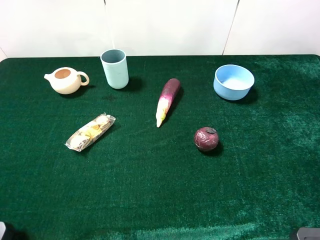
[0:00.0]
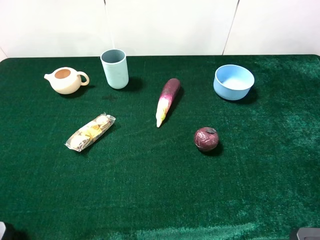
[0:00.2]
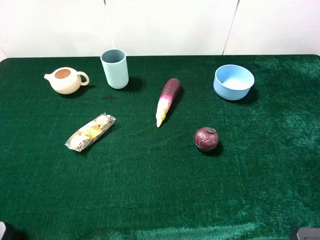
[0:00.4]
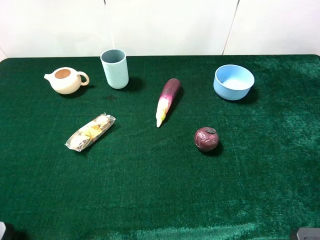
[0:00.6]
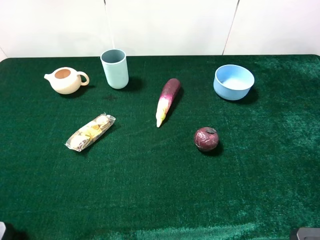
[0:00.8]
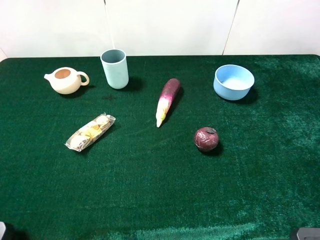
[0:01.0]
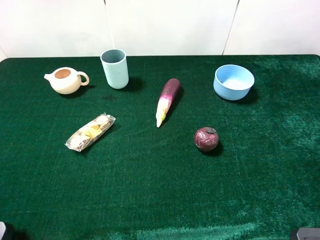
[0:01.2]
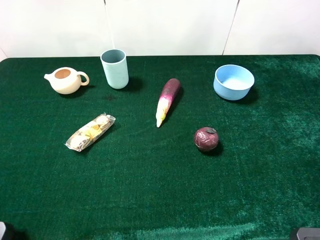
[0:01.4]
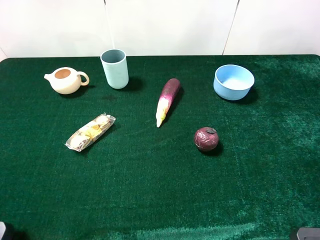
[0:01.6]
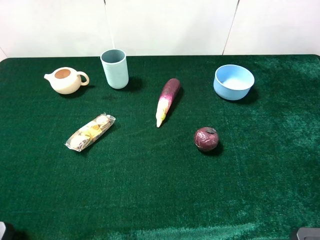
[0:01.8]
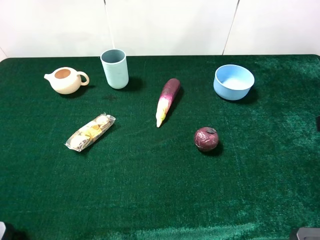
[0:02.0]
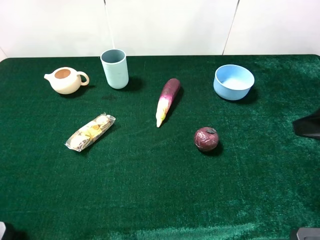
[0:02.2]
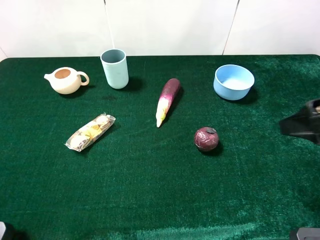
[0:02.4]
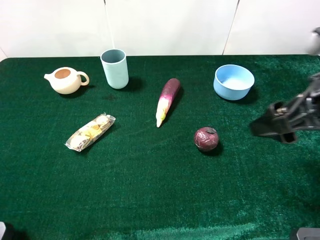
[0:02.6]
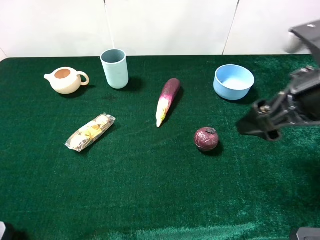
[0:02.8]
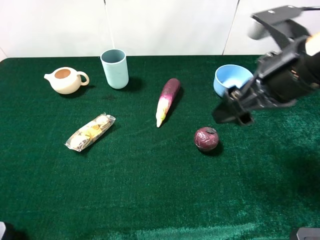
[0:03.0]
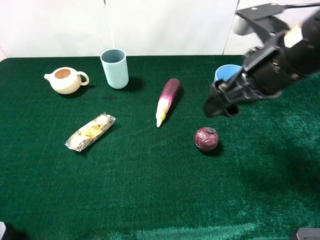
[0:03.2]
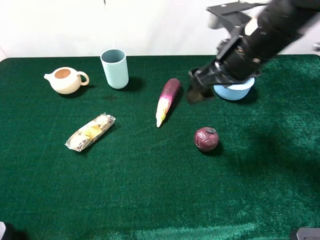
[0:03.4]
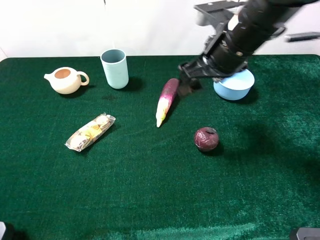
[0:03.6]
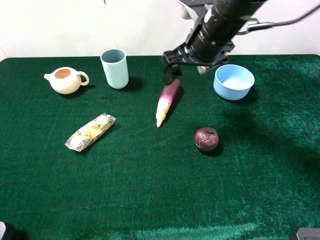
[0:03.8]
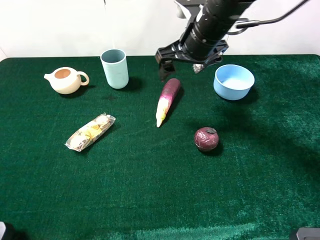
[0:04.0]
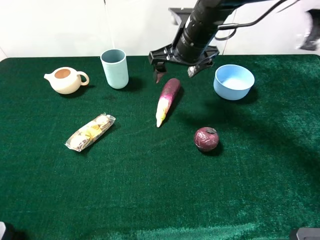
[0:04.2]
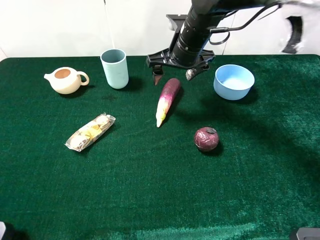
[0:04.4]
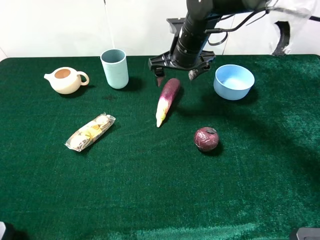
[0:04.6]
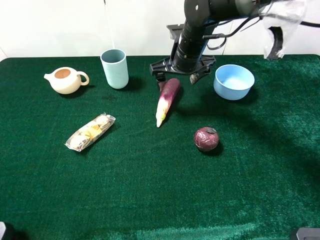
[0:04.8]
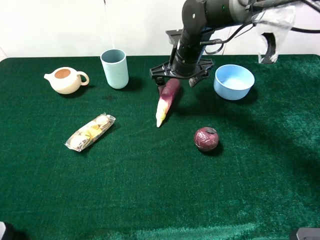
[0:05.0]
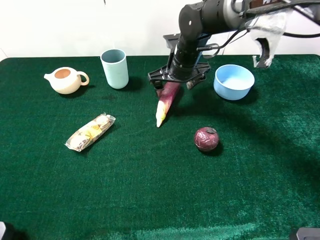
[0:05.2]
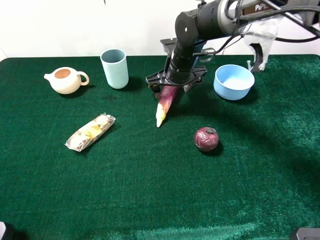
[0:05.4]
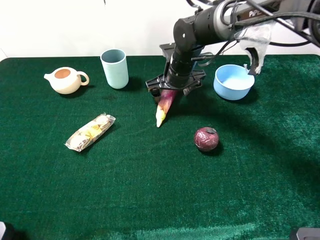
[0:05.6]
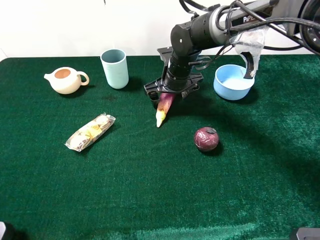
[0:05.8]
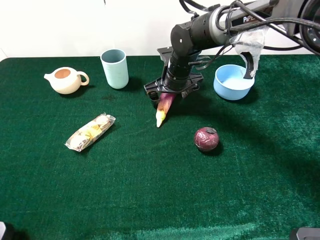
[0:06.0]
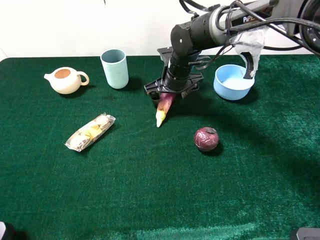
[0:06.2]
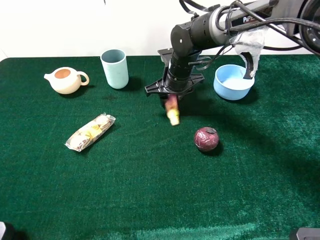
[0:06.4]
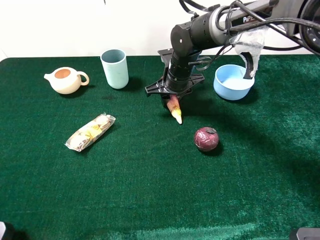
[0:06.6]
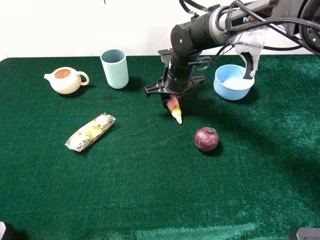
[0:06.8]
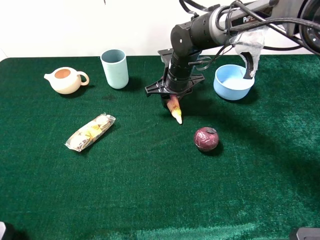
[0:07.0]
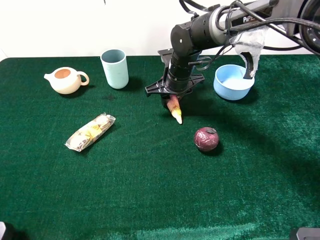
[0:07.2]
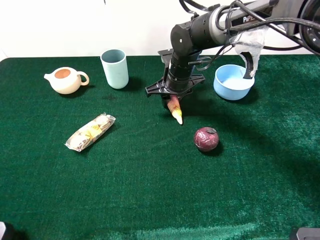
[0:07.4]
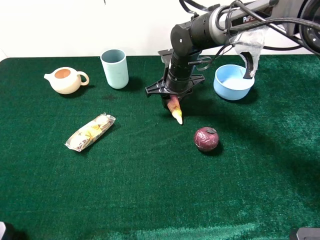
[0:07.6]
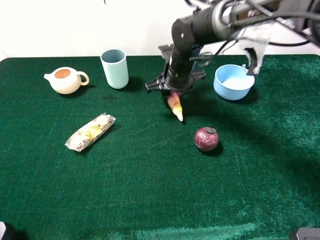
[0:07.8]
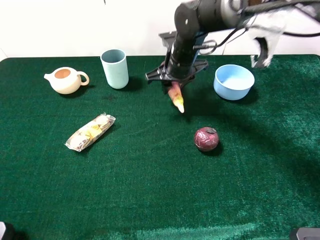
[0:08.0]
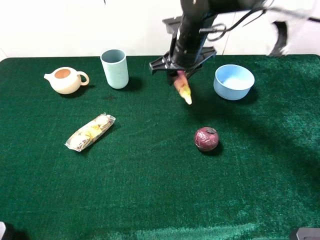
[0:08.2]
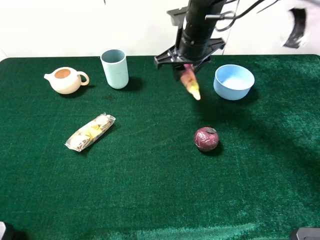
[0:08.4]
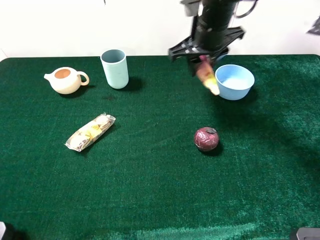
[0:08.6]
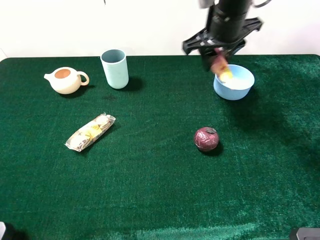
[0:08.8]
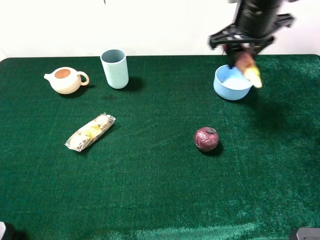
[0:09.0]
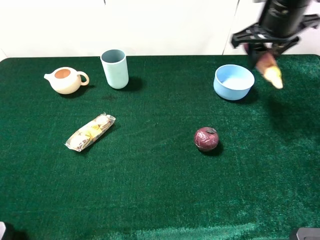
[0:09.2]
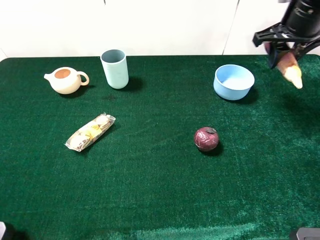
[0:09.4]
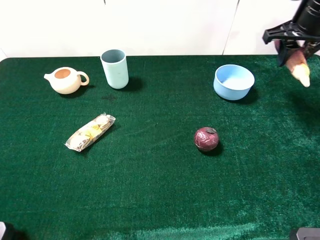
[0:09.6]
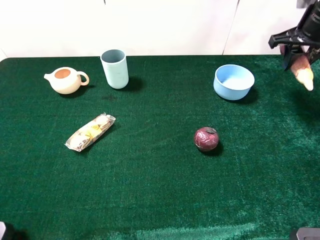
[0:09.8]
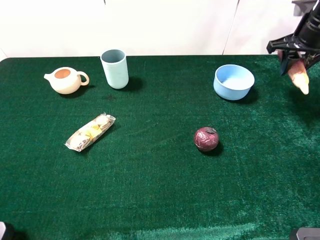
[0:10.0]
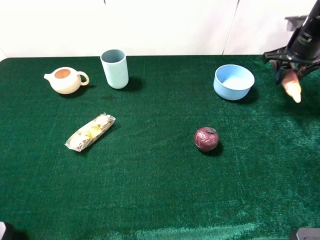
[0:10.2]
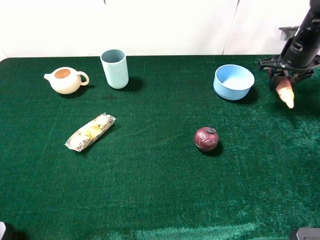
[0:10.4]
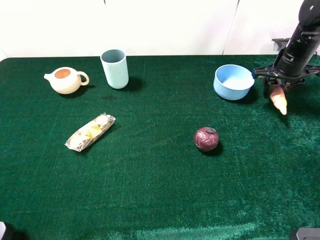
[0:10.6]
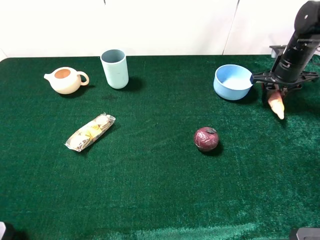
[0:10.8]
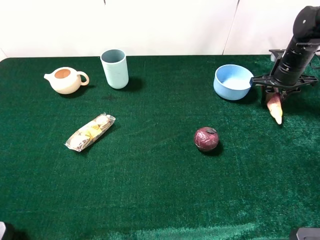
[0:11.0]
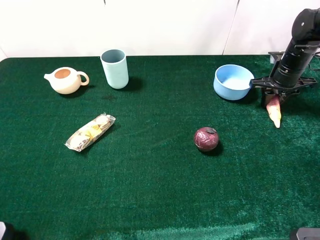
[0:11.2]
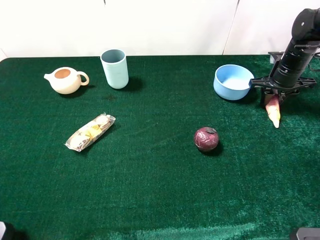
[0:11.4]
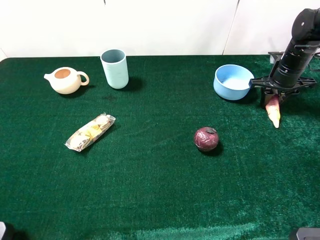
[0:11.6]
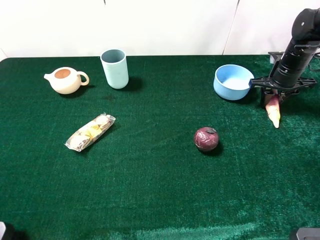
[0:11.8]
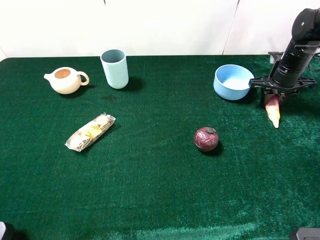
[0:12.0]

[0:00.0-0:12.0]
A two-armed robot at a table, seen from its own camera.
Task of the whole recording: the gripper move the object.
Step, 0:00.0 to 0:07.4: Grasp the eggplant with the right gripper.
0:01.6 to 0:03.0: The right gripper heads forward and to the left, covering approximately 20 cm.
0:03.0 to 0:04.4: The right gripper moves forward, to the left and downward, some 25 cm.
0:04.4 to 0:06.0: The right gripper is displaced downward by roughly 10 cm.
0:06.0 to 0:07.6: The right gripper closes.
0:07.6 to 0:09.0: The right gripper goes about 20 cm upward and to the right.
0:09.0 to 0:10.4: The right gripper travels to the right, downward and forward by roughly 20 cm.
0:10.4 to 0:12.0: The right gripper goes some 5 cm downward.

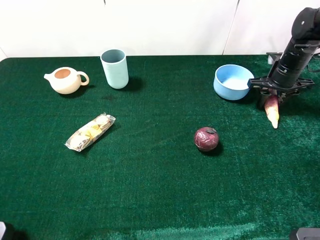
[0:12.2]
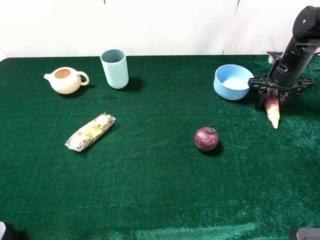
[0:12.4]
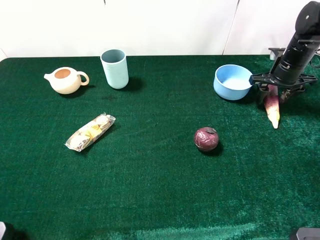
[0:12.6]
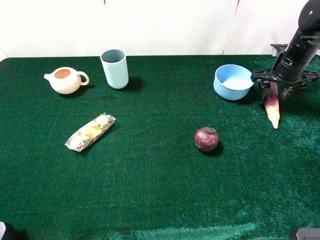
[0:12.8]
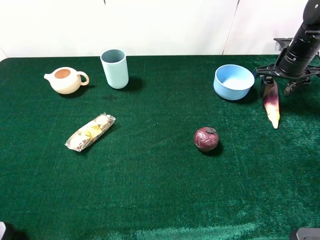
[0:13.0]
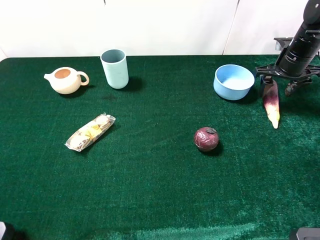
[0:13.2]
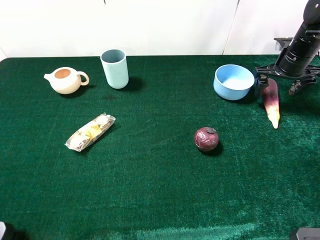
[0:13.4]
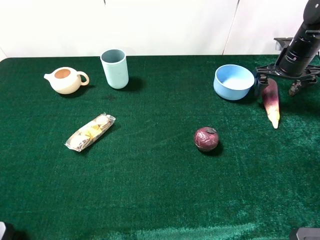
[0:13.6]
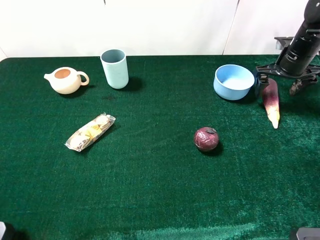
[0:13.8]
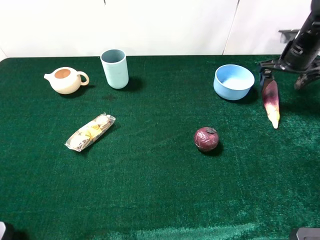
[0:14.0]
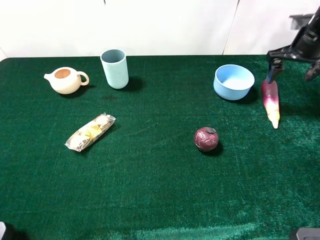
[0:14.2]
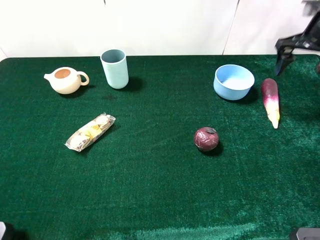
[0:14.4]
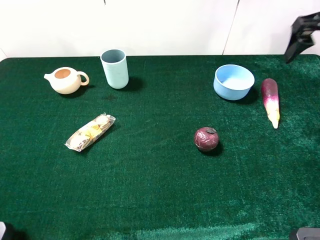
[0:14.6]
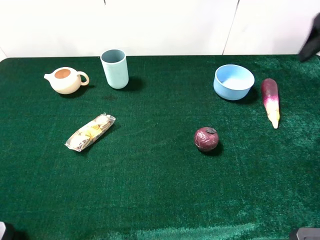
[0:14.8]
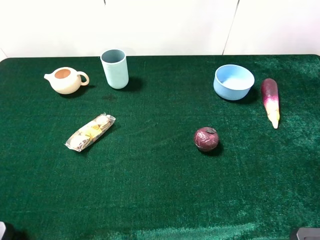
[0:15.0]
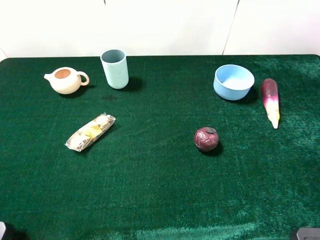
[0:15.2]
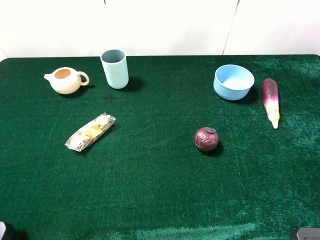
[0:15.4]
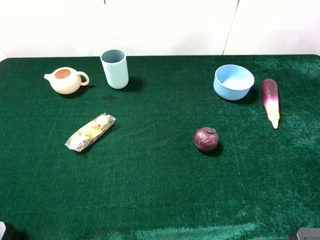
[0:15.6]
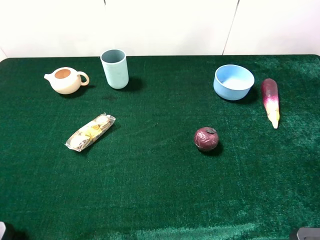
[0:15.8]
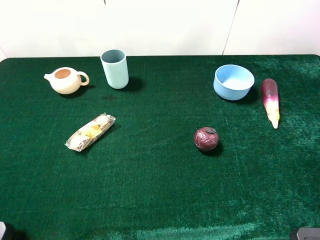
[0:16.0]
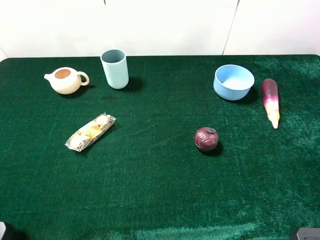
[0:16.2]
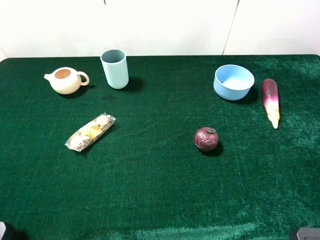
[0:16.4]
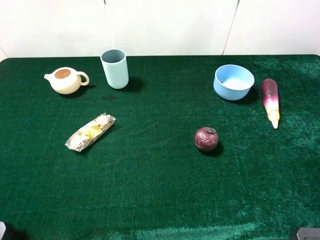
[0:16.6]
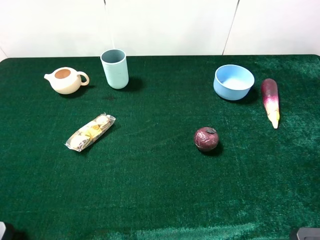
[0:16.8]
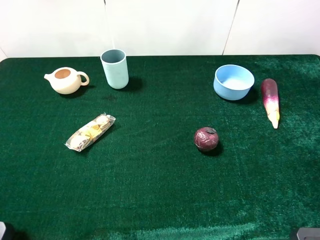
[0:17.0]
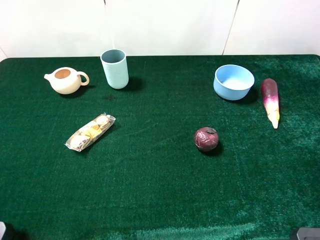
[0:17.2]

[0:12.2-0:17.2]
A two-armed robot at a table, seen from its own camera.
Task of the whole recording: the gripper move the object.
Step, 0:12.2 to 0:14.4: Place the eggplant on the table with the right gripper.
0:12.2 to 0:13.8: The right gripper opens its fingers.
0:13.8 to 0:15.6: The right gripper shifts approximately 40 cm backward and upward.

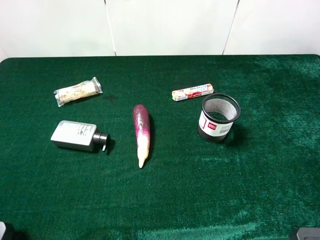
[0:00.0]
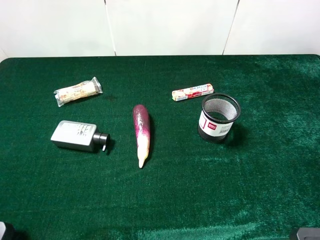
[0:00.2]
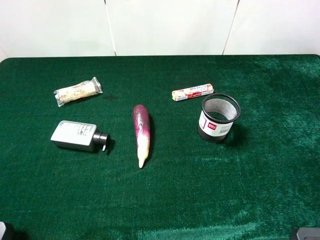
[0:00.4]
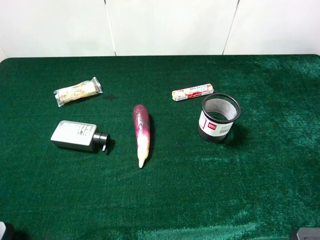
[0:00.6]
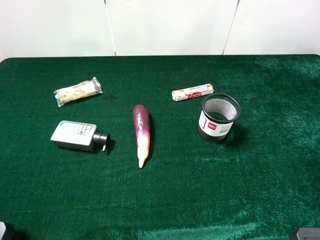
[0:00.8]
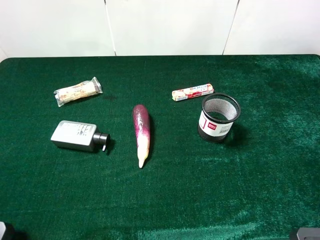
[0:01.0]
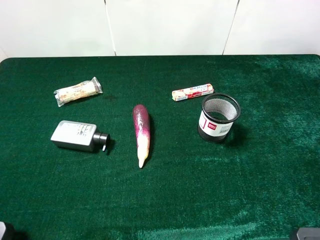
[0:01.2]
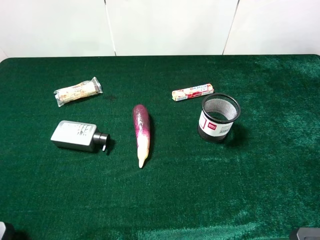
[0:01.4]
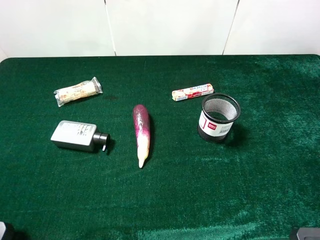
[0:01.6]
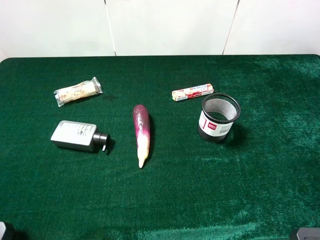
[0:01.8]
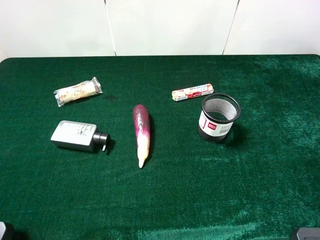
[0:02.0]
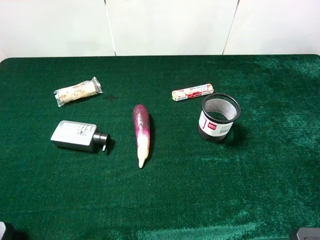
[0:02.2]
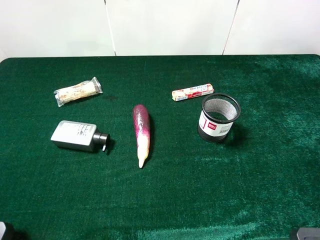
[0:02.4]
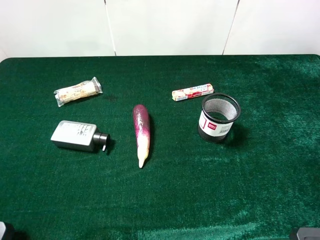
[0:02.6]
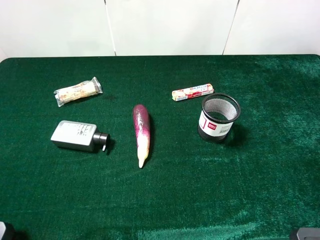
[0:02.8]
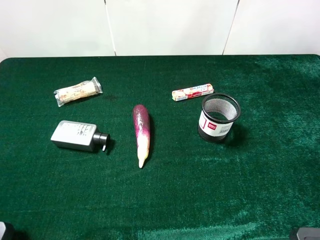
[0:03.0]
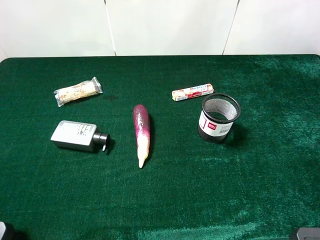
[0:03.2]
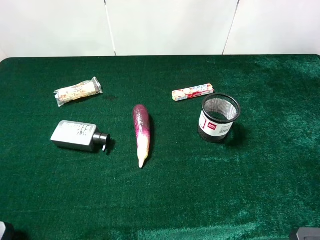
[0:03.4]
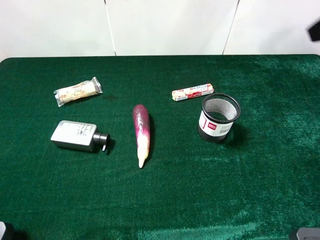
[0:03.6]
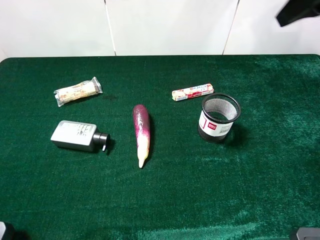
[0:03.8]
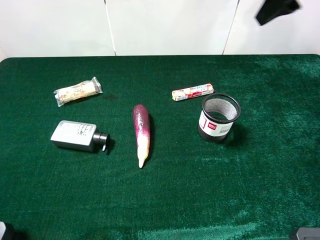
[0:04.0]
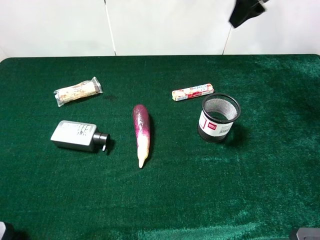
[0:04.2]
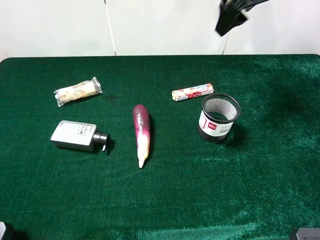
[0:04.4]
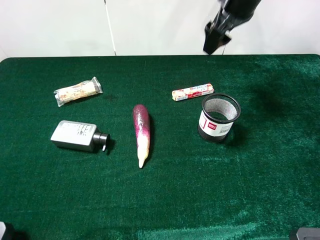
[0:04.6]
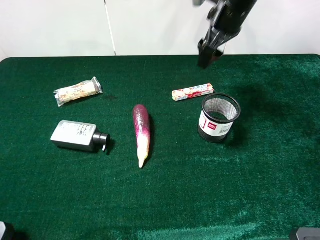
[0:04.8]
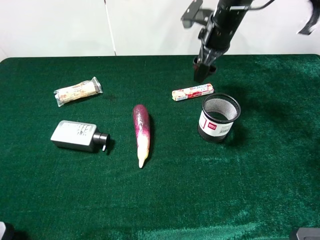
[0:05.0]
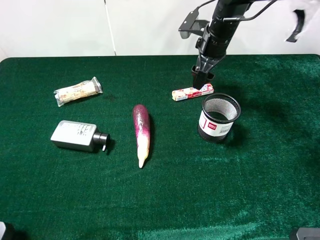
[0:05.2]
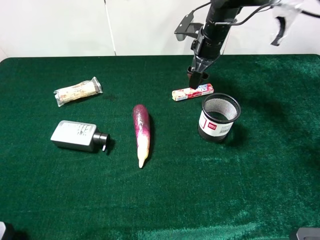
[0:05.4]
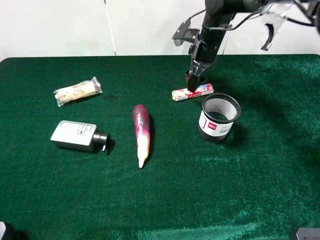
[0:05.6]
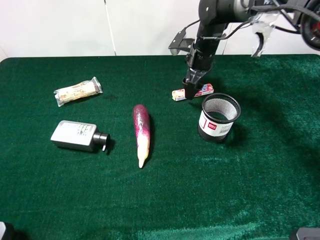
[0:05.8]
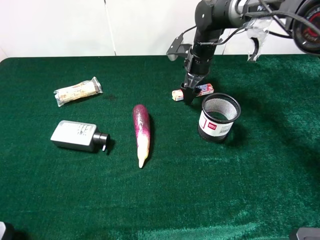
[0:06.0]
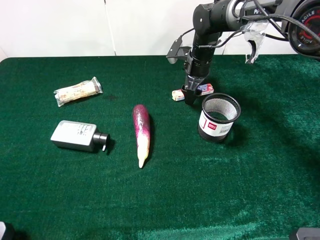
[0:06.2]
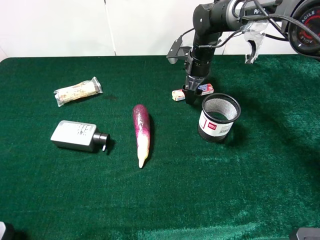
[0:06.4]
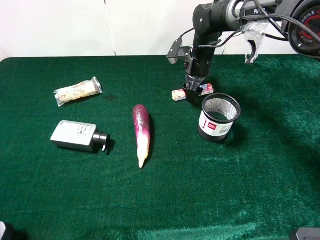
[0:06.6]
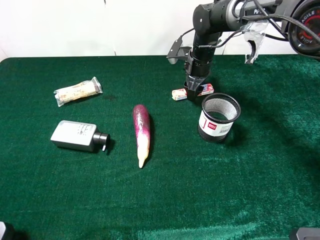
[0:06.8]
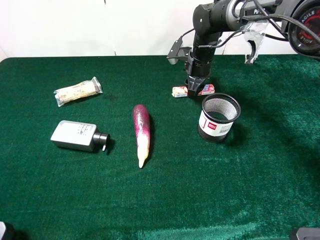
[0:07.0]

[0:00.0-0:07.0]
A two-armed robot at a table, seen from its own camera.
Task of the whole recording: the gripper move the object.
0:00.0 to 0:02.8: Neither gripper changes place.
0:02.8 to 0:04.2: The right gripper moves forward, roughly 35 cm.
0:04.2 to 0:05.6: The right gripper heads downward, covering some 20 cm.
0:05.6 to 0:07.0: The right gripper closes.
